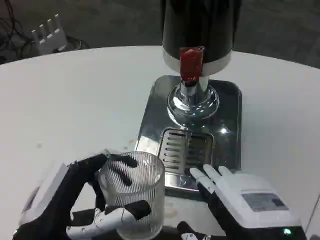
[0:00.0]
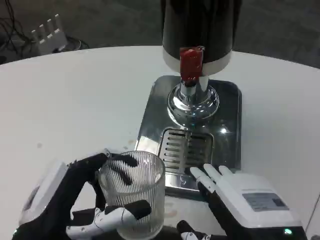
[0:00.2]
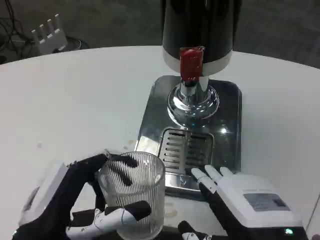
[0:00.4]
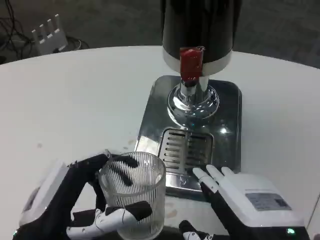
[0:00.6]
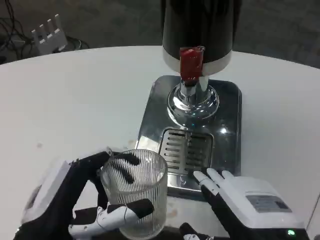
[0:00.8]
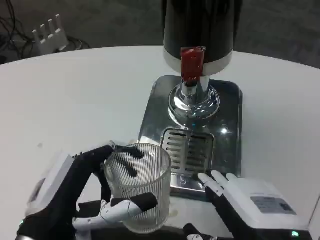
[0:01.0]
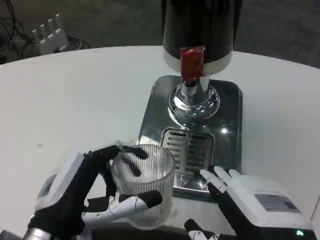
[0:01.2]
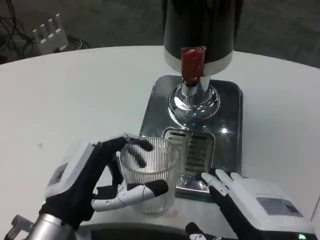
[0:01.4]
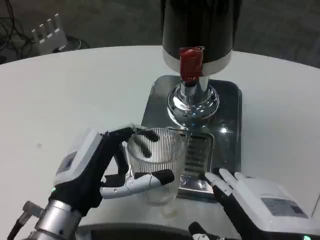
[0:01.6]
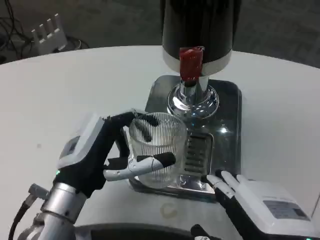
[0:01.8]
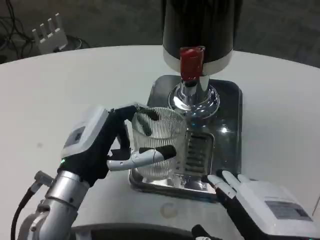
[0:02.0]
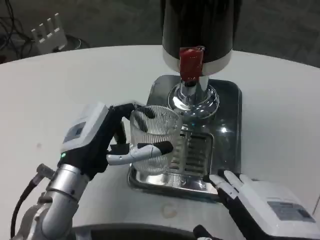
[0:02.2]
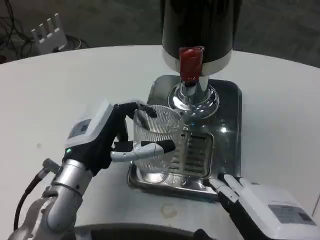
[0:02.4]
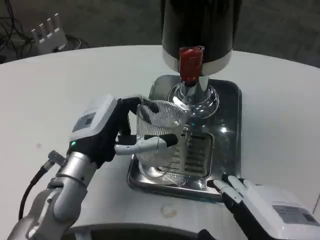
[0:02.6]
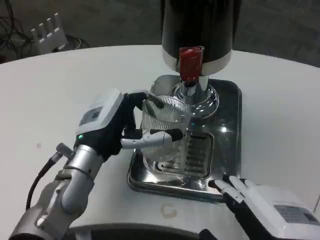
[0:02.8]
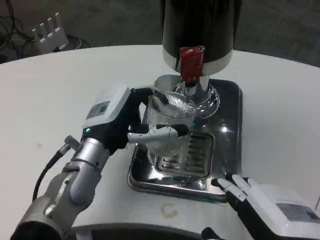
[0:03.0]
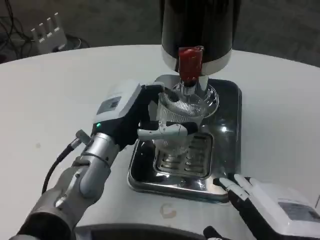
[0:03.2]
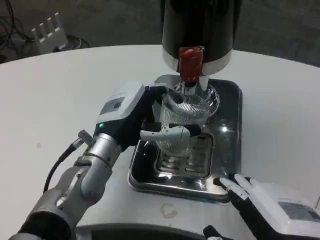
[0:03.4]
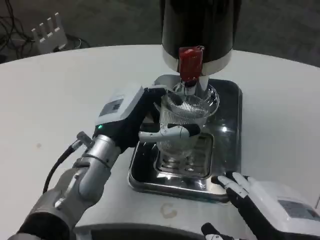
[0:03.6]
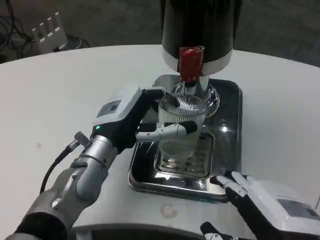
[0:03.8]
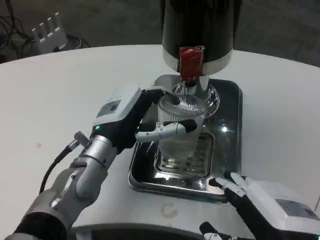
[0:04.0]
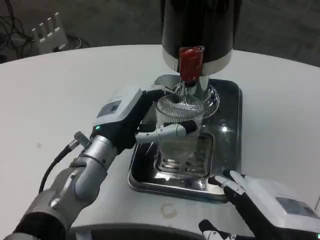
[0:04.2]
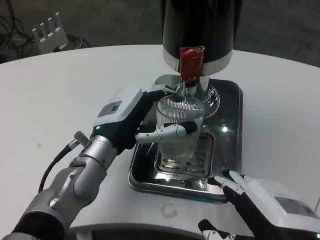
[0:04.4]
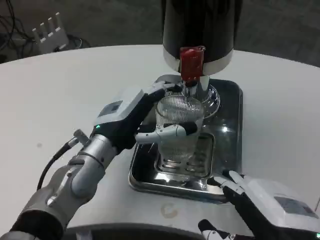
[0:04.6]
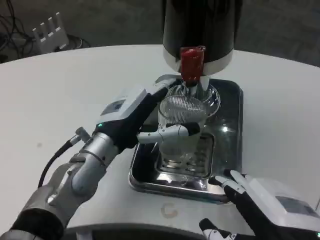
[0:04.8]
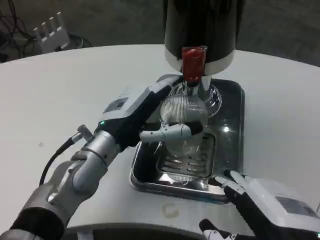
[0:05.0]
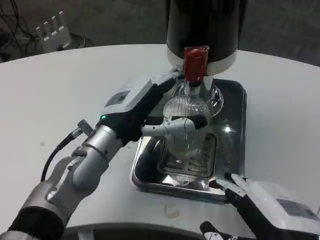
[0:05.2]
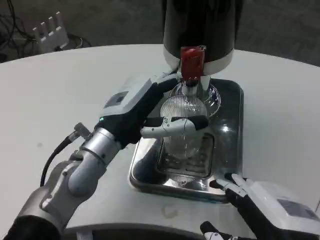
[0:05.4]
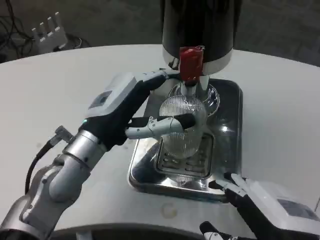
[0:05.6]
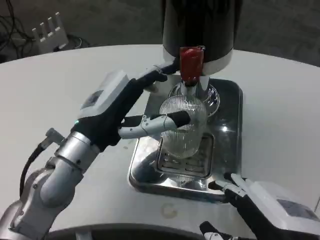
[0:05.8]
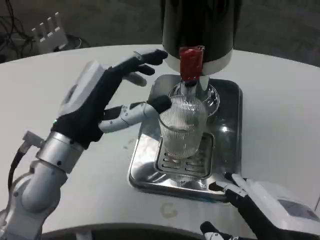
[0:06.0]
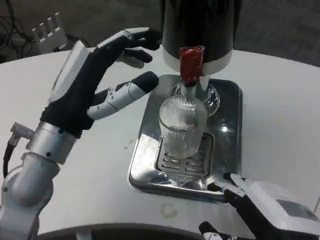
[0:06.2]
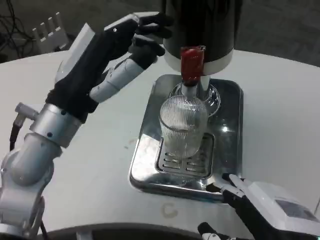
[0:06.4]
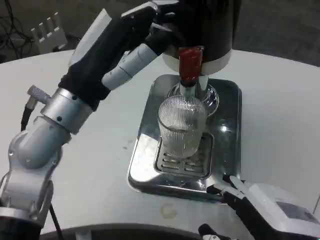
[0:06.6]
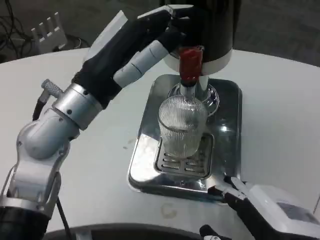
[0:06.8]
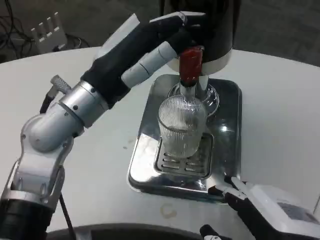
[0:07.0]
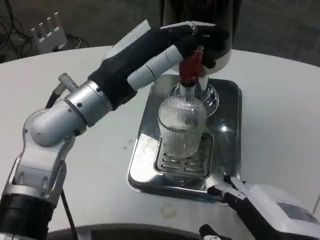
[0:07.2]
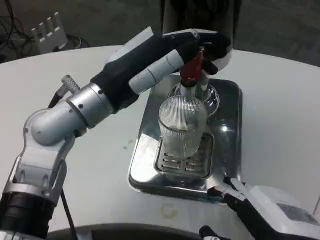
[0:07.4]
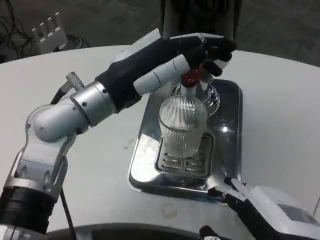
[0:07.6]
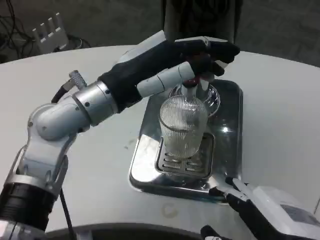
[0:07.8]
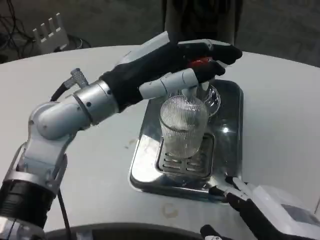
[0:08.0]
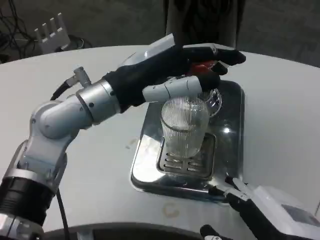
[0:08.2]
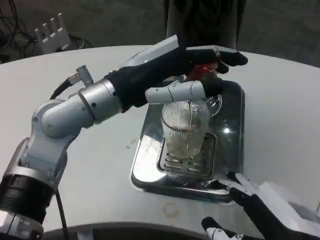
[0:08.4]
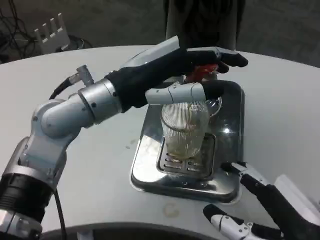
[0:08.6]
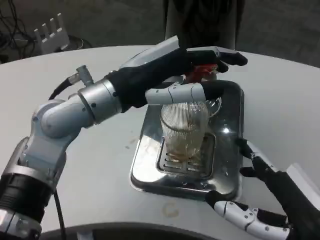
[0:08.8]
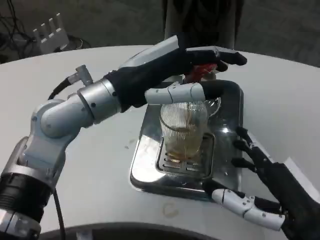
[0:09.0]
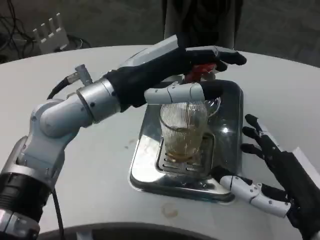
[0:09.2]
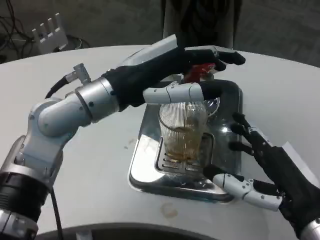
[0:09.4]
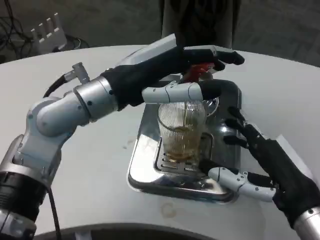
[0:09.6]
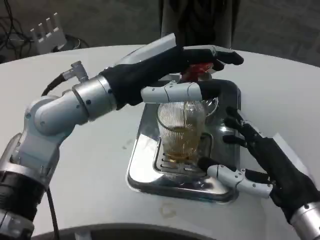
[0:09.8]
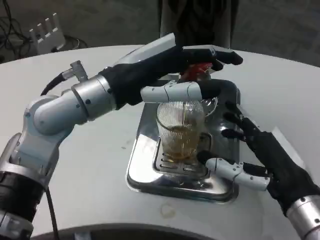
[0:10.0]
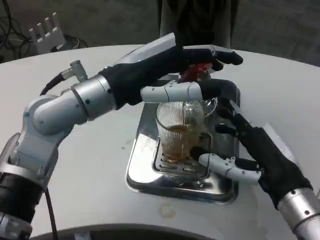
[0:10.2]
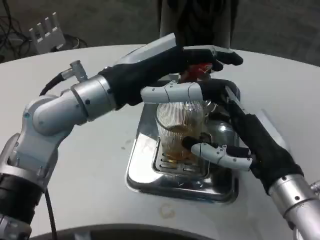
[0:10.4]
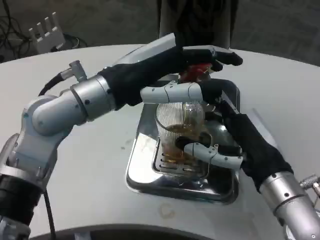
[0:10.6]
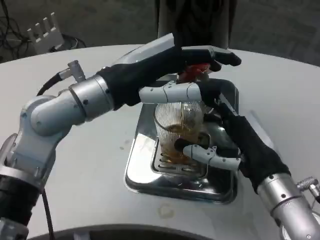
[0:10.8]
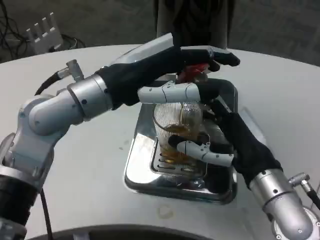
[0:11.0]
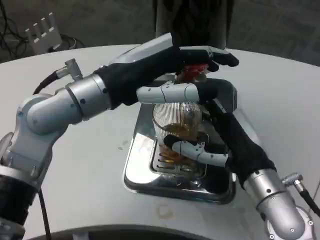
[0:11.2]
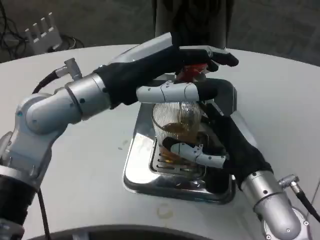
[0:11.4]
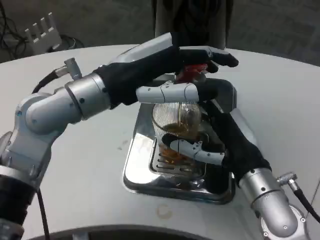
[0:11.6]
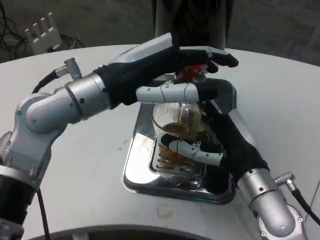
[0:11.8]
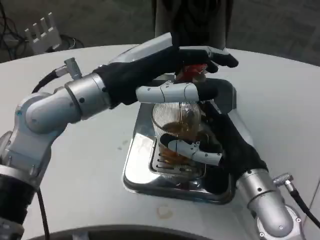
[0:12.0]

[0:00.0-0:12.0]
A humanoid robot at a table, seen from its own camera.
Task of the whole recording: Grasp the cup under the faucet to collect the drink, then remove the cup.
0:00.0 to 0:01.6: The left hand shifts roughly 5 cm forward.
0:01.6 to 0:03.0: The left hand shifts roughly 10 cm forward.
0:03.0 to 0:04.4: The hands move only a little.
0:04.4 to 0:06.0: The left hand moves roughly 5 cm.
0:06.0 to 0:07.6: The left hand shifts some 5 cm upward.
0:09.0 to 0:10.4: The right hand goes some 10 cm forward.
0:10.4 to 0:12.0: The right hand shifts by approximately 5 cm.

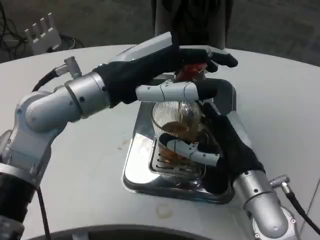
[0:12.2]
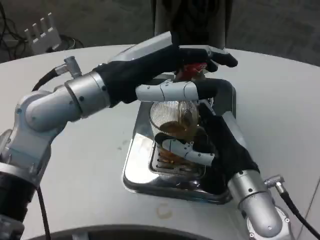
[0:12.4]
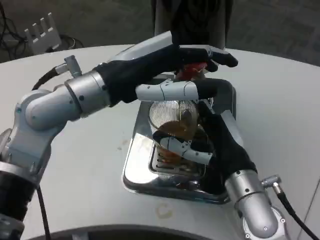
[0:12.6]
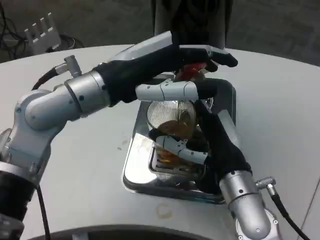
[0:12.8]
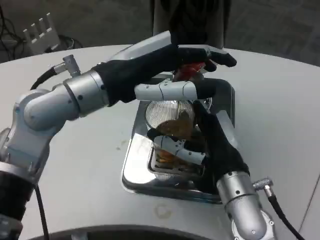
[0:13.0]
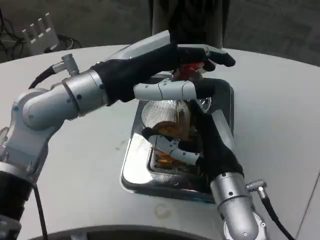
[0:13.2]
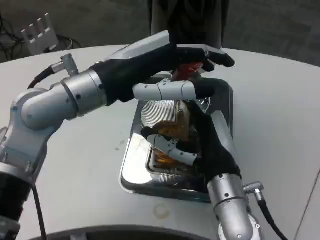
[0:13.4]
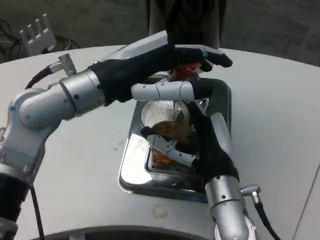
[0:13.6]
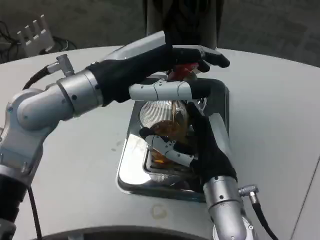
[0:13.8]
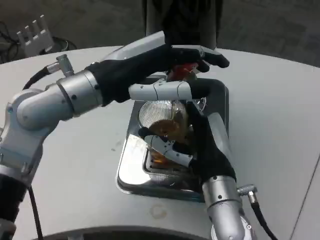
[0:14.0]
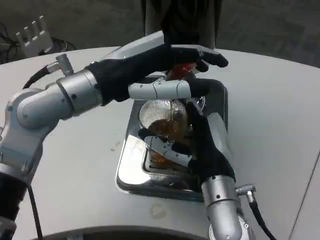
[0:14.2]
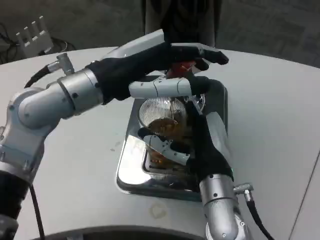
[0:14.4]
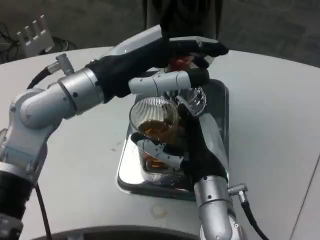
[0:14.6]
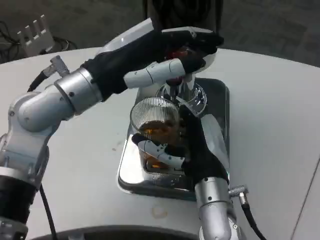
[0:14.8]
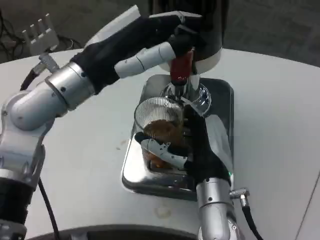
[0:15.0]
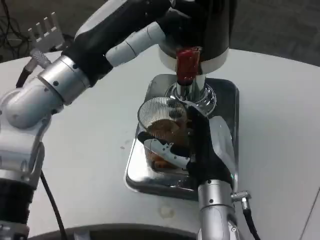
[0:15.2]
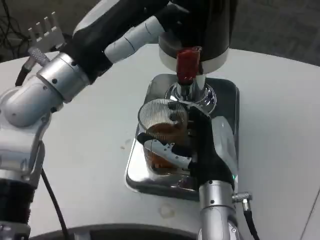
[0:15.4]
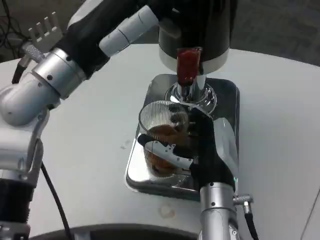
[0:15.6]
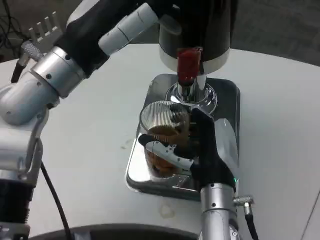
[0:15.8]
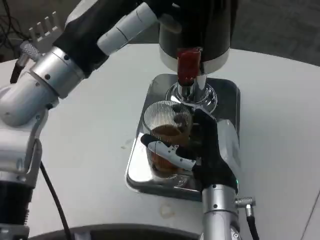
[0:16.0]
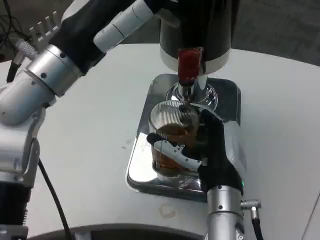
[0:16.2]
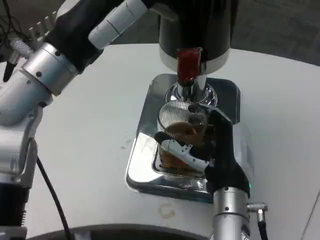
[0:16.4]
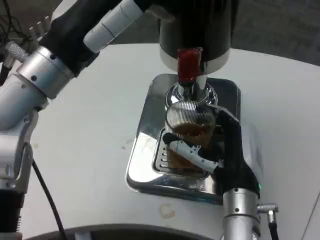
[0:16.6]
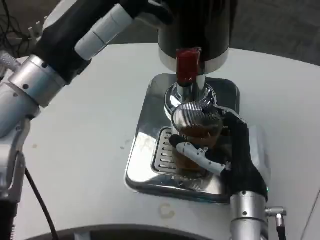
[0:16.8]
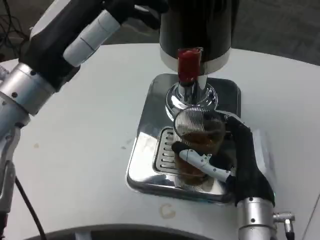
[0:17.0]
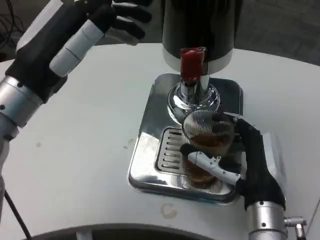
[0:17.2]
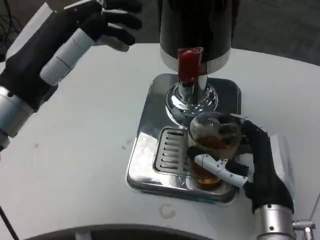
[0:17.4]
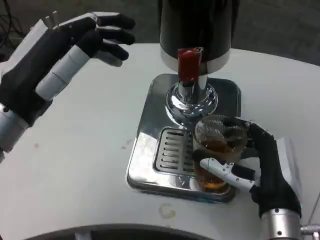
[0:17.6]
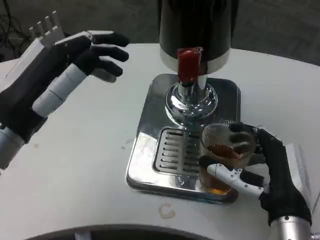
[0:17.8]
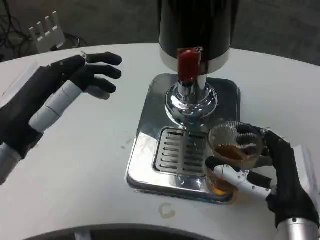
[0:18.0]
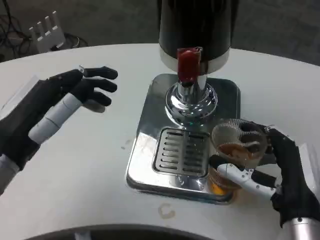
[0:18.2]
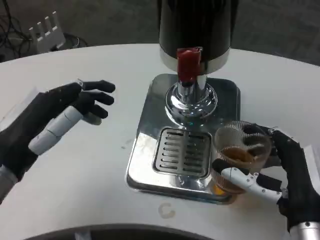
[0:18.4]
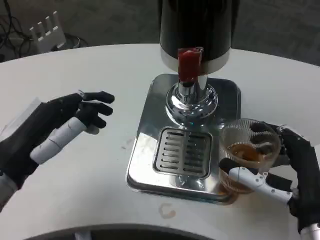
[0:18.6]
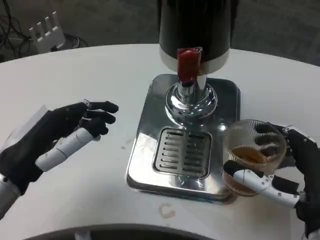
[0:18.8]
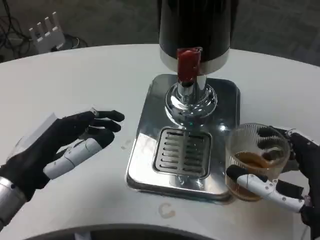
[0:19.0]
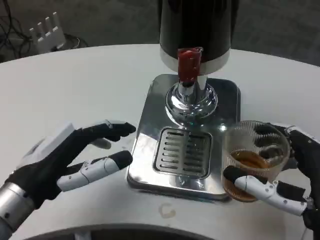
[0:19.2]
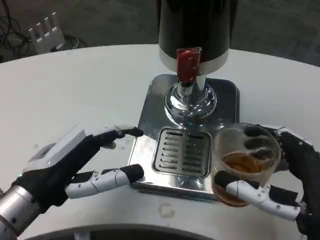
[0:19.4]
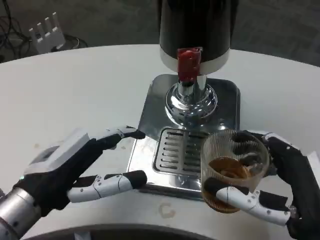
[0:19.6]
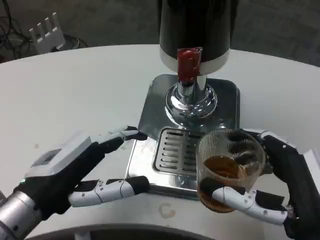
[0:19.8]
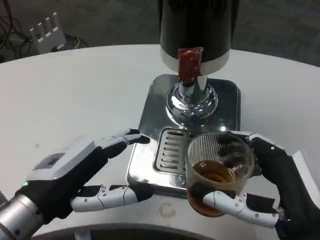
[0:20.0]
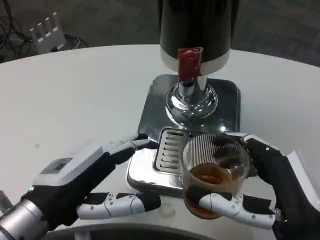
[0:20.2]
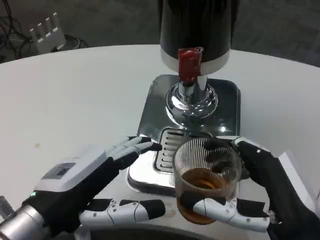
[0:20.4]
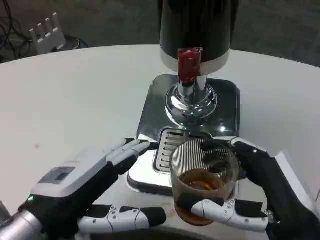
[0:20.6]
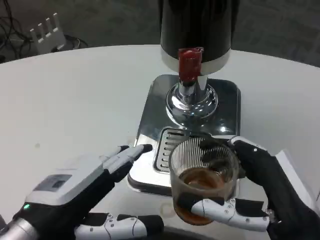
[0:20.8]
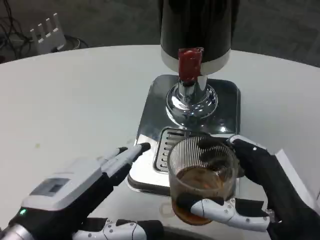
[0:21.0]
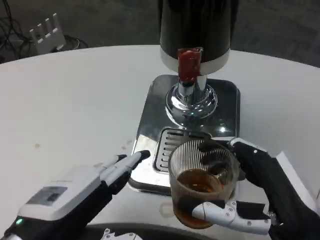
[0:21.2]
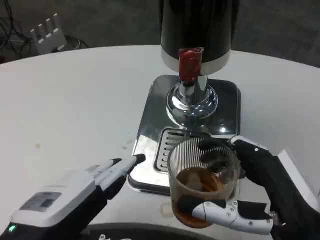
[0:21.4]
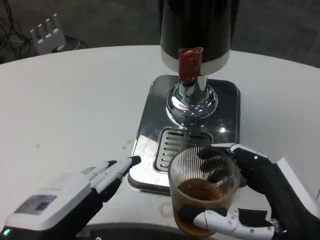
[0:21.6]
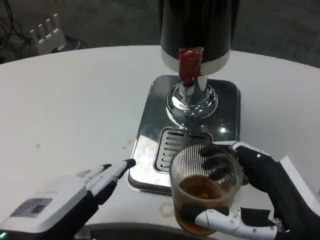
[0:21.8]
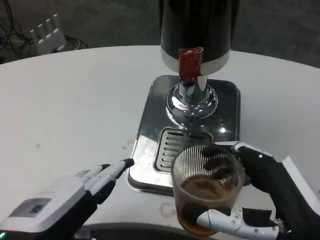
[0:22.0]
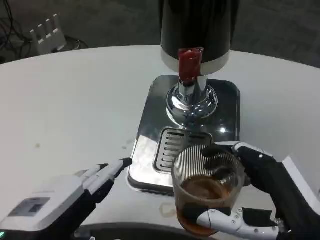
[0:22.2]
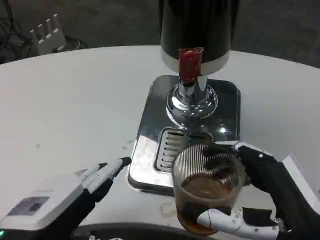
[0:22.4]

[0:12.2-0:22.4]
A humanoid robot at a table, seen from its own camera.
Task of the whole recording: Grasp the cup under the faucet to collect the drink, then remove the cup.
0:12.2 to 0:13.6: The right hand ends up approximately 5 cm from where it was.
0:16.6 to 0:18.0: The left hand heads downward, backward and to the left, covering roughly 10 cm, while the right hand is displaced to the right and backward by approximately 10 cm.
0:18.0 to 0:19.4: The left hand shifts by about 5 cm. The right hand travels backward by some 5 cm.
0:19.4 to 0:21.0: The left hand heads backward, covering some 5 cm.
0:21.0 to 0:22.4: The hands make only small movements.
